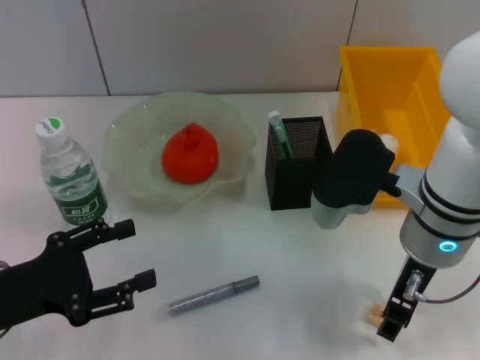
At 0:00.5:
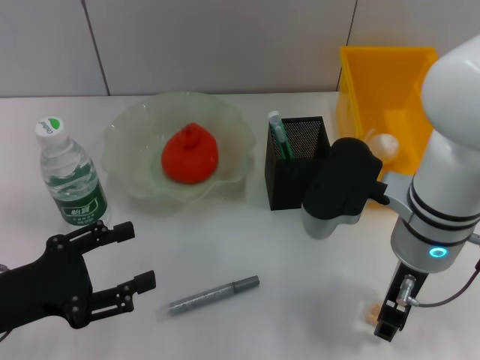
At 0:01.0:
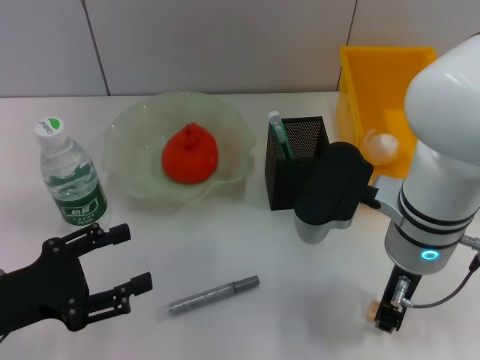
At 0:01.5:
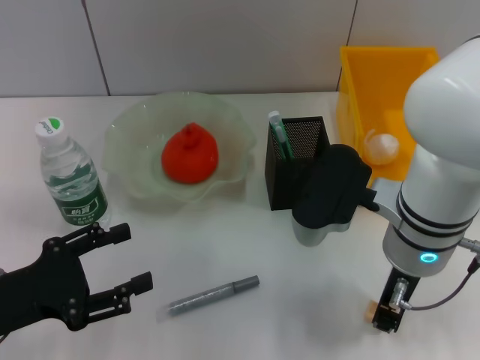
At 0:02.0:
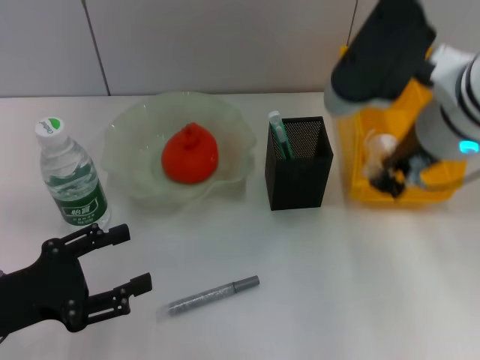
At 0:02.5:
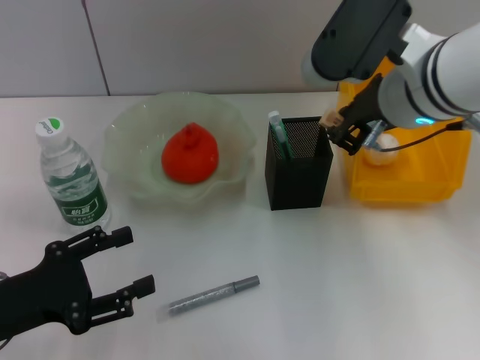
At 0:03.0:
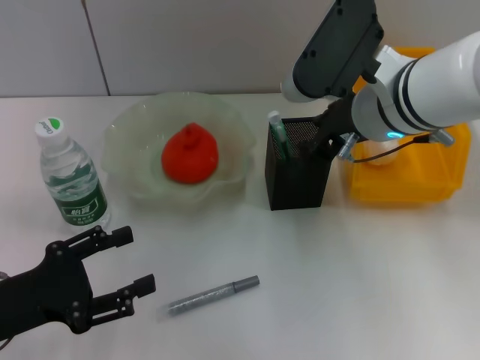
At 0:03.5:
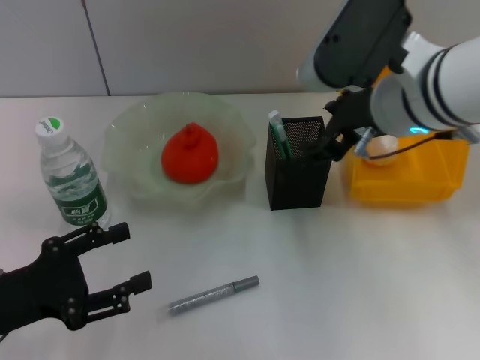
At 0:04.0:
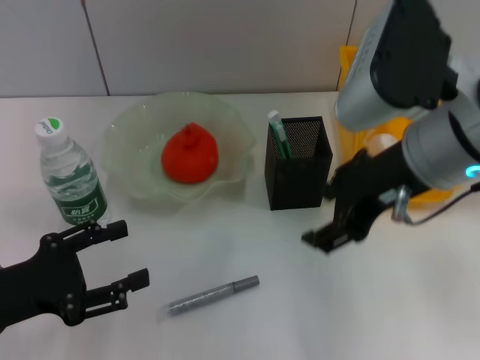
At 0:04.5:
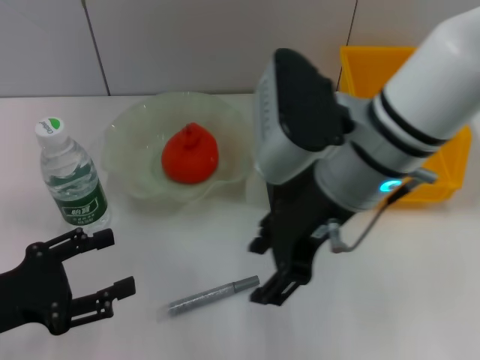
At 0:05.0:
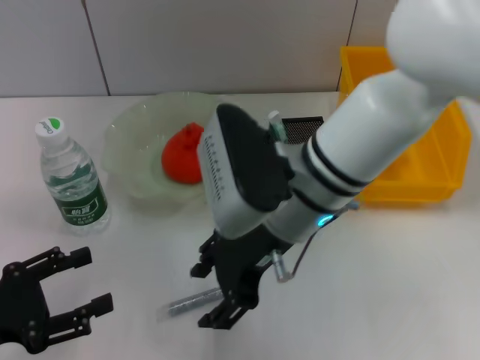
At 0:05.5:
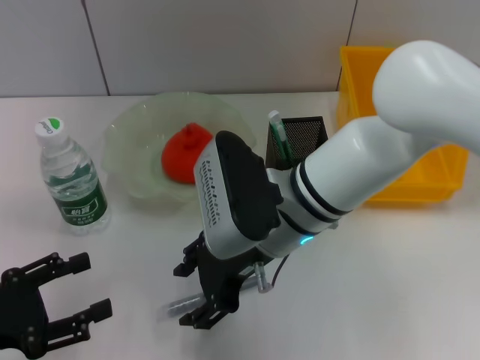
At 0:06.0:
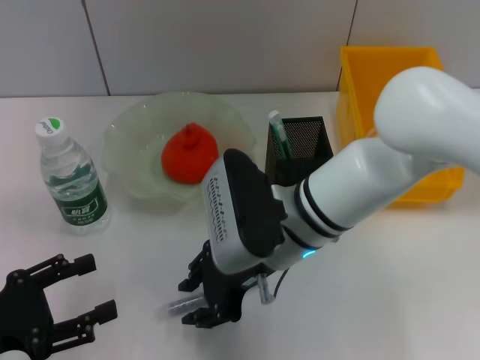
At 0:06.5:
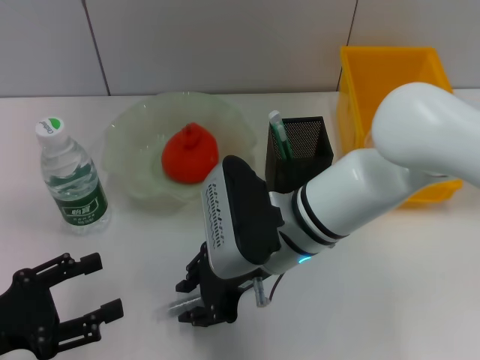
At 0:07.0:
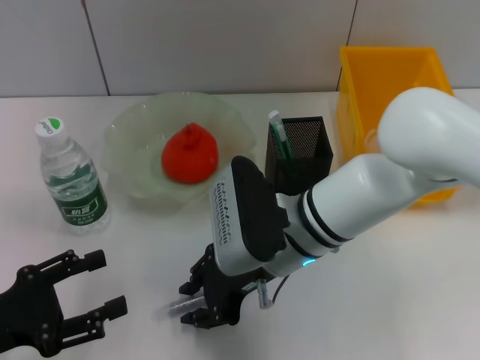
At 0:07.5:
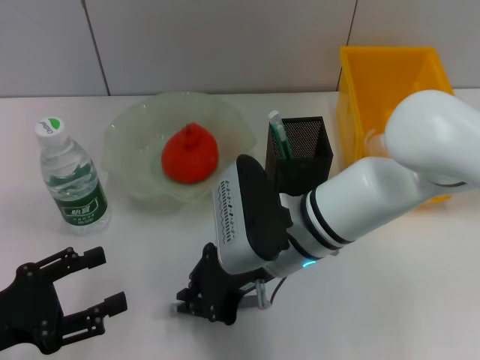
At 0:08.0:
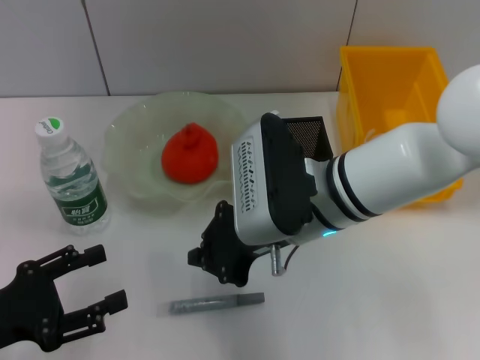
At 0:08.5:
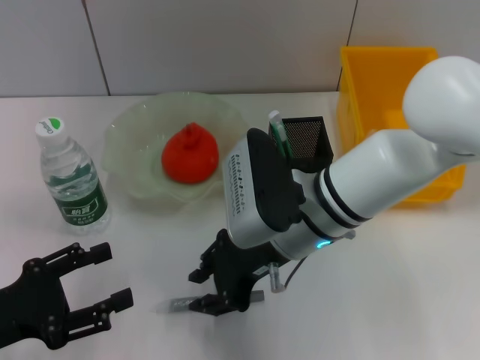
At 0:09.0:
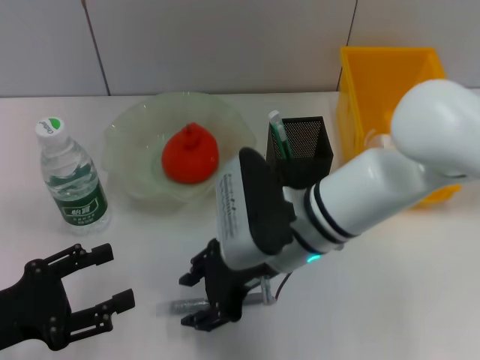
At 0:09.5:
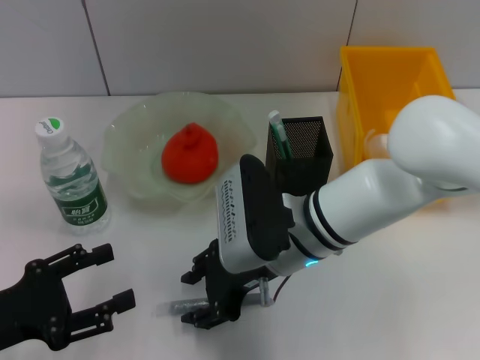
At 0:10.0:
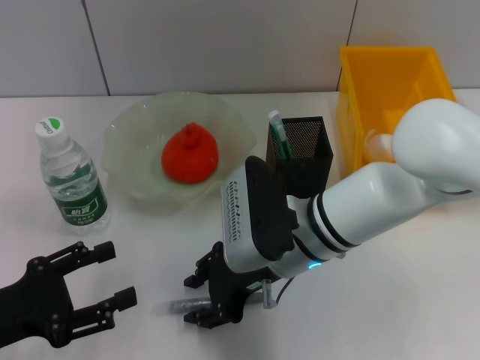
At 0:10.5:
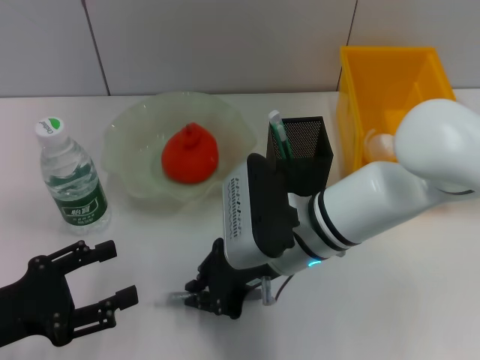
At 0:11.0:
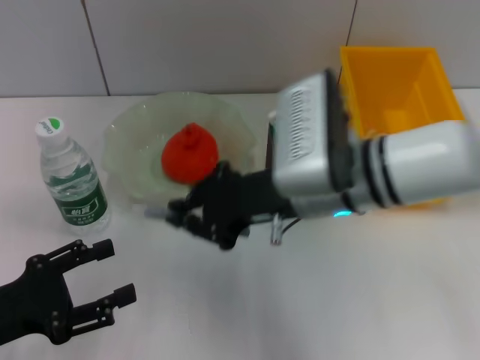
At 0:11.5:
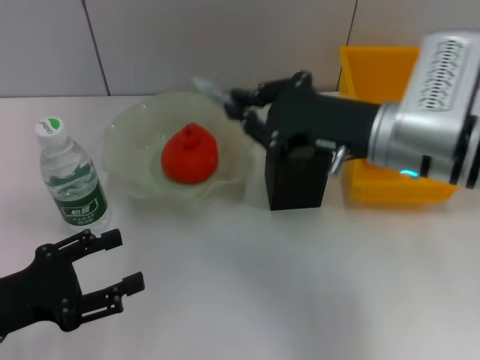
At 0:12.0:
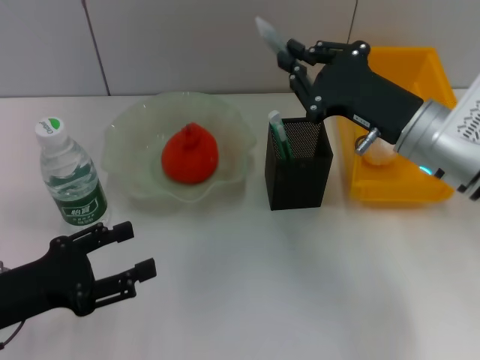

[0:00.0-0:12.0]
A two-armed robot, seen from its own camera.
Step, 0:01.5 to 0:03.0: Put the eraser into the pen holder with the right hand.
Step, 0:03.5 to 0:10.0: Grab the gray glue with the right hand.
0:00.0 to 0:02.0: The right gripper goes approximately 10 cm upward, and closes.
0:02.0 to 0:04.0: The right gripper opens up.
0:04.0 to 0:06.0: The right gripper moves downward and to the left, some 15 cm.
0:06.0 to 0:08.0: The right gripper closes its fingers.
0:08.0 to 0:10.0: The right gripper shifts approximately 5 cm downward, and opens its fingers.
0:10.0 to 0:12.0: The right gripper shifts about 15 cm to the right, and closes up.

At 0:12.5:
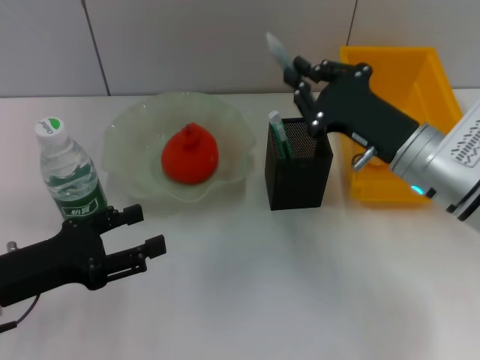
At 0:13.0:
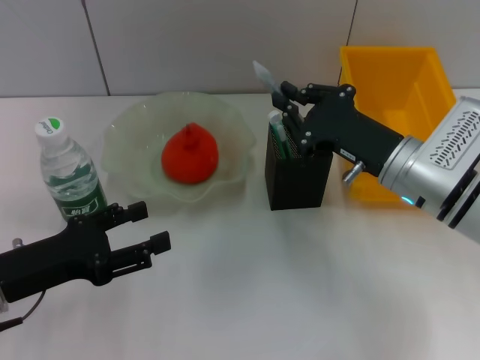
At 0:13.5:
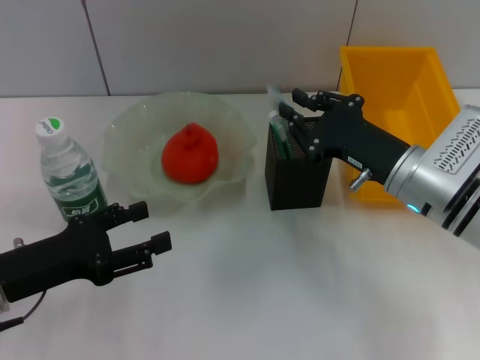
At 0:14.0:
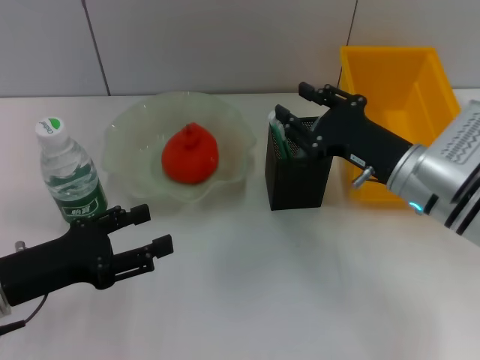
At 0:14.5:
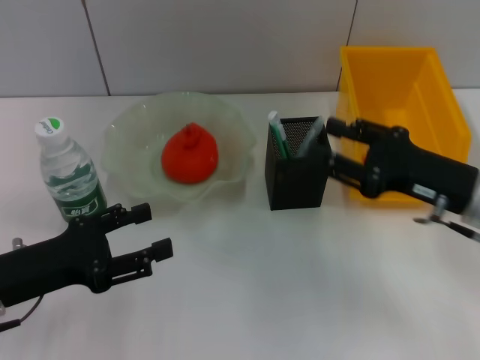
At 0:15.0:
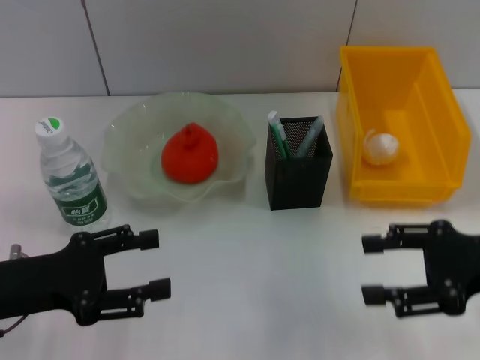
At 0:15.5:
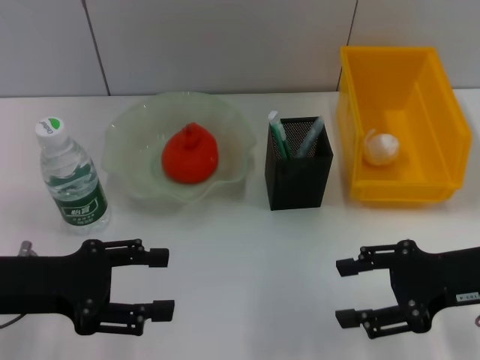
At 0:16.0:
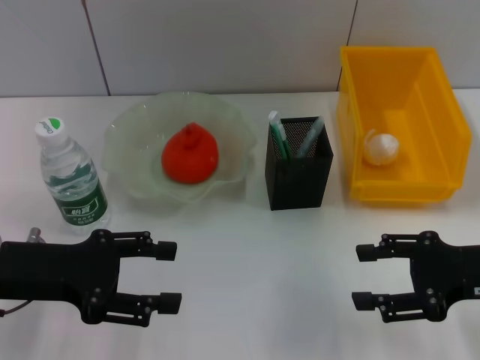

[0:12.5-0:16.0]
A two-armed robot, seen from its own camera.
0:12.5 to 0:14.5: The right gripper shifts roughly 5 cm to the right, and opens up.
0:14.5 to 0:16.0: The right gripper ends up about 5 cm from where it was.
